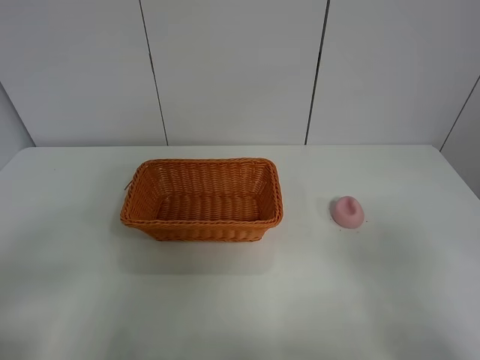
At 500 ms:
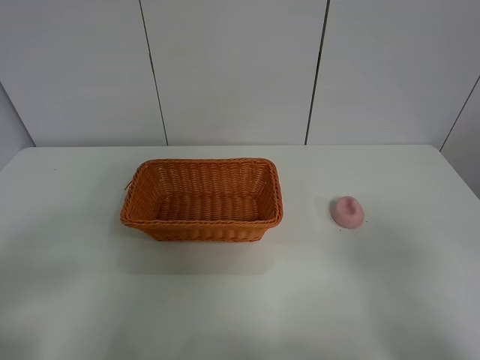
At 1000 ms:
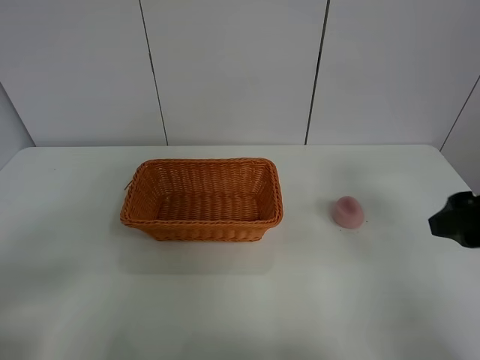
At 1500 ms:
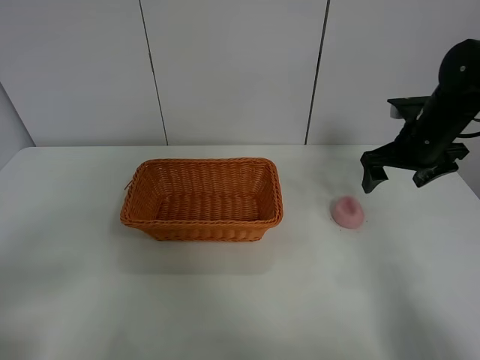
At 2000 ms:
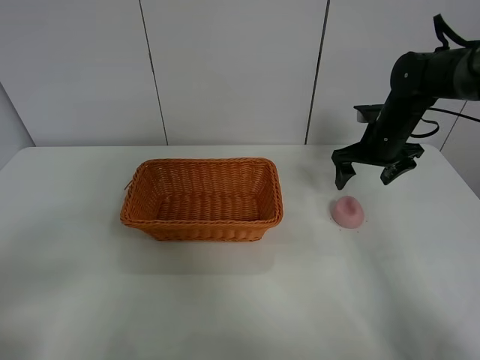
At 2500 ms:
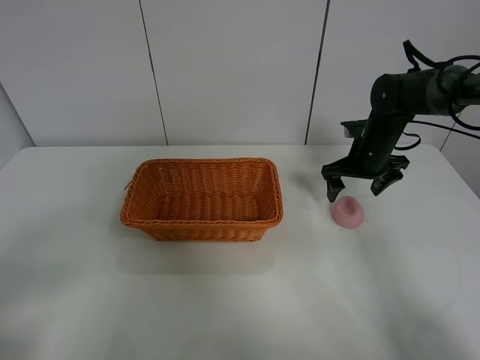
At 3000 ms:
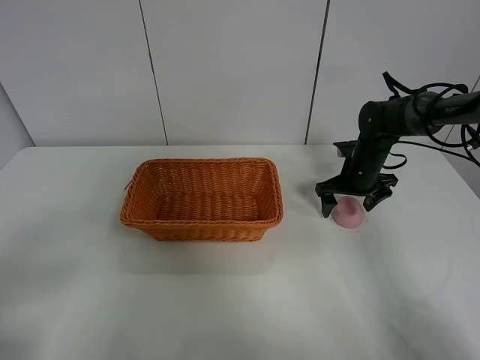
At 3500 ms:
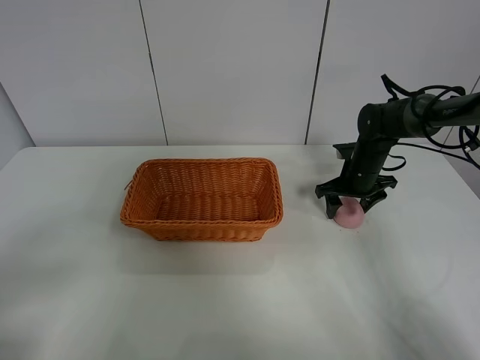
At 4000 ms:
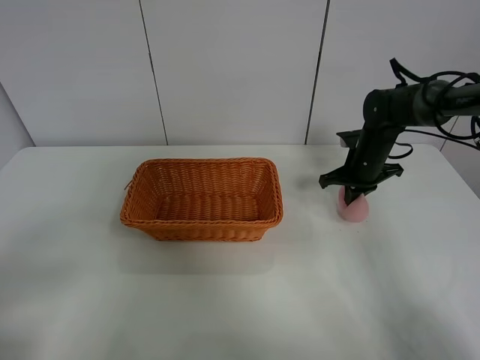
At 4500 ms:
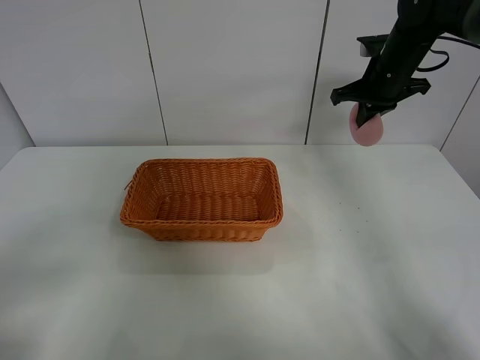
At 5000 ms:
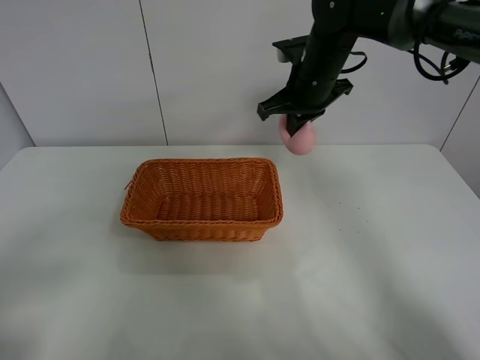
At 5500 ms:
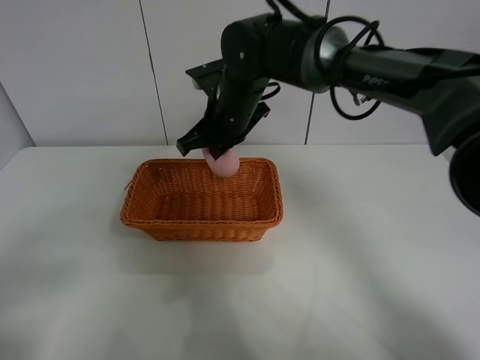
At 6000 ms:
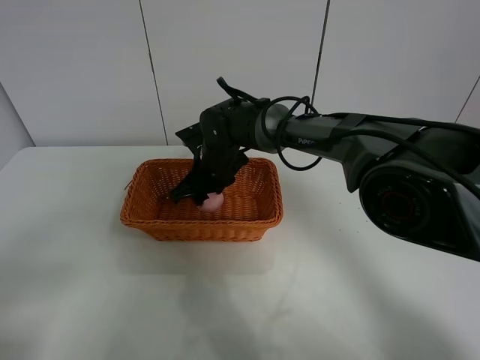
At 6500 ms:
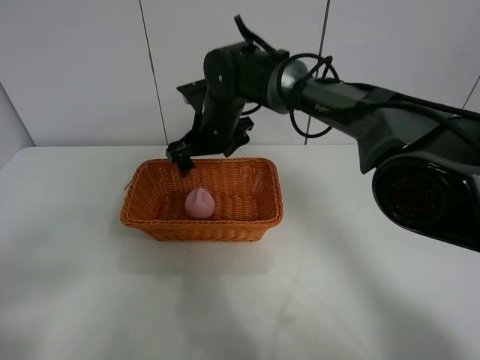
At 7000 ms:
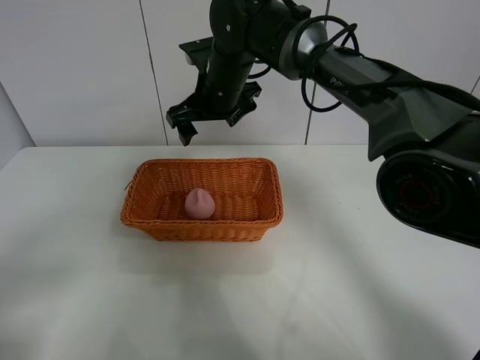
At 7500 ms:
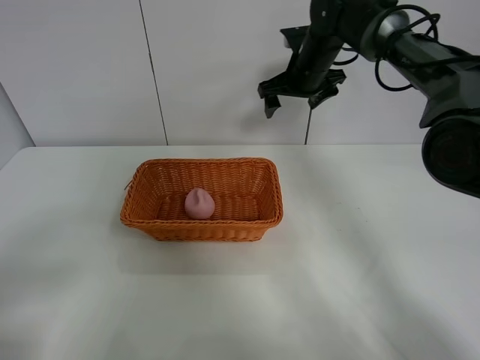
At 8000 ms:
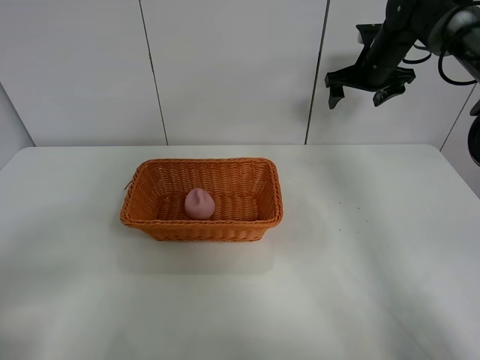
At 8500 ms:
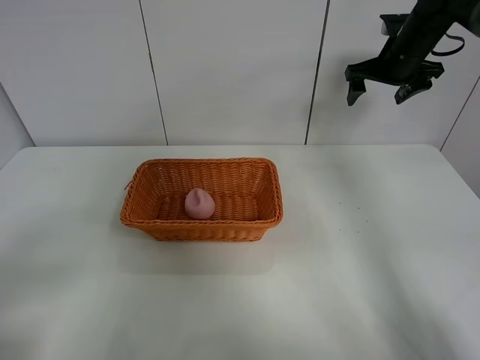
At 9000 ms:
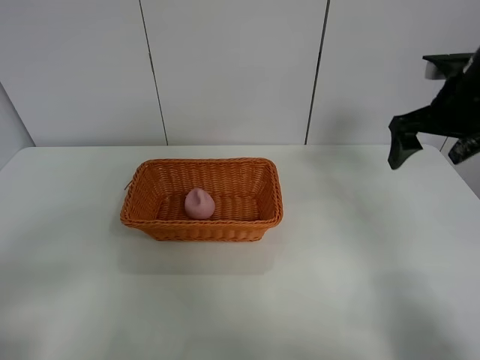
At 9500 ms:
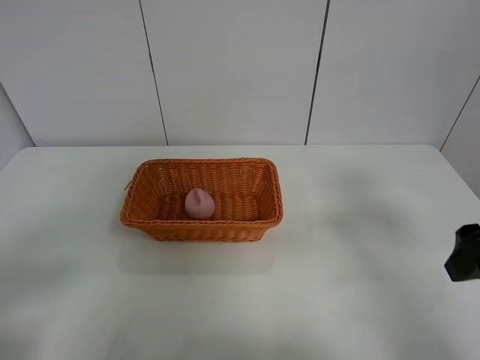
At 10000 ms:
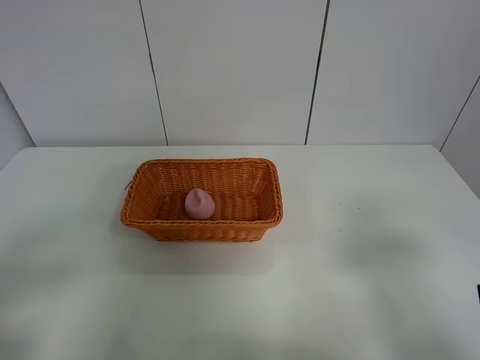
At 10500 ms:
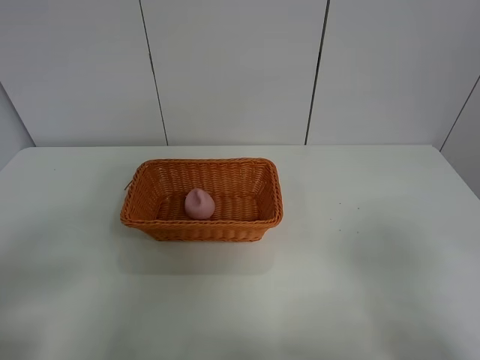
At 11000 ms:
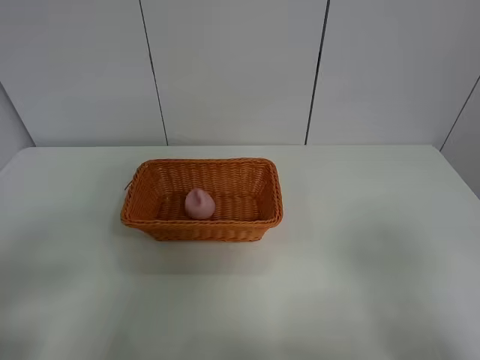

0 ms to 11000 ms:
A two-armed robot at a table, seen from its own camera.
Step, 0 ms to 3500 ms: Grasp the peach with right gripper.
Step, 4000 ms to 6500 ms: Place the peach in the basket with right gripper.
0 ms to 2000 ms: The right gripper goes approximately 40 cm forward.
2000 ms to 3500 ms: The right gripper is displaced downward by some 10 cm, and closes.
3500 ms to 5500 ms: The right gripper travels to the left and upward by approximately 30 cm, and closes its fingers.
5500 ms to 7500 ms: The right gripper travels to the right and forward by approximately 20 cm, and opens up.
7500 ms to 9000 ms: The right gripper is displaced backward and to the right by some 25 cm.
9000 ms to 11000 ms: The right gripper heads backward, covering some 30 cm.

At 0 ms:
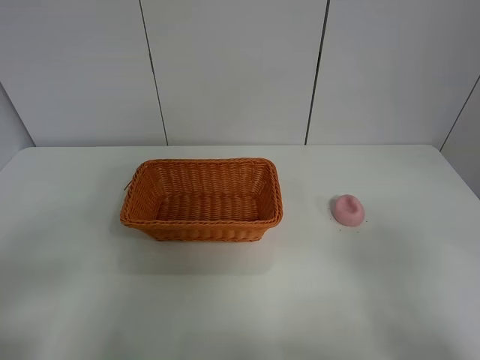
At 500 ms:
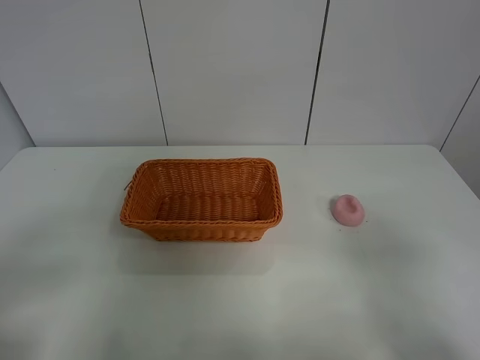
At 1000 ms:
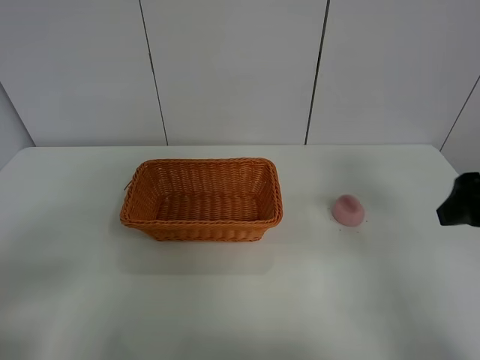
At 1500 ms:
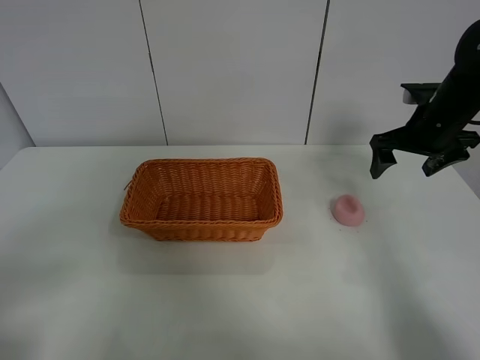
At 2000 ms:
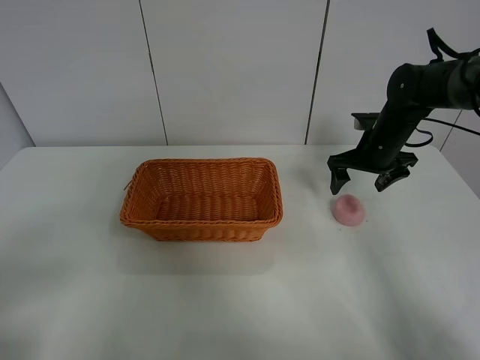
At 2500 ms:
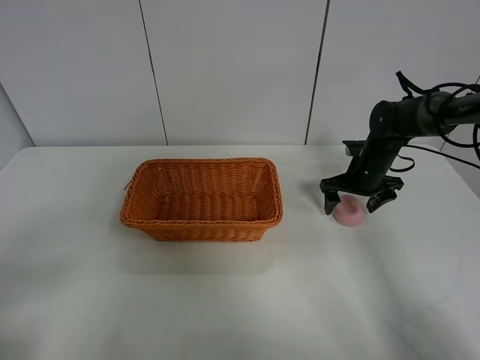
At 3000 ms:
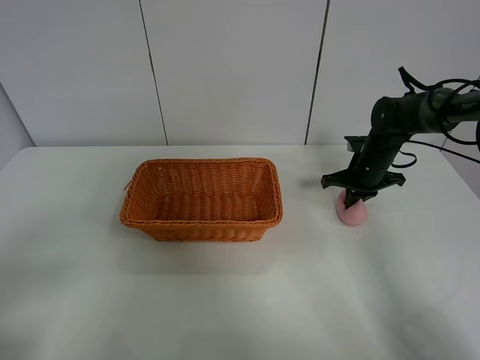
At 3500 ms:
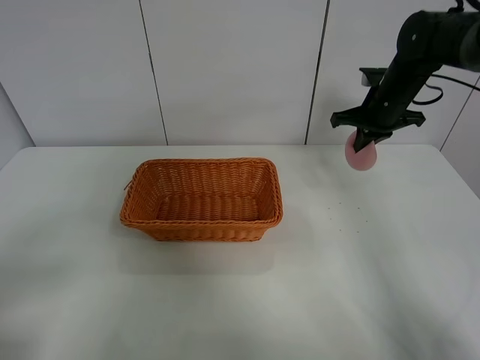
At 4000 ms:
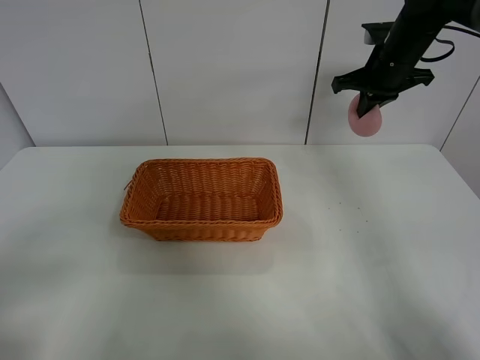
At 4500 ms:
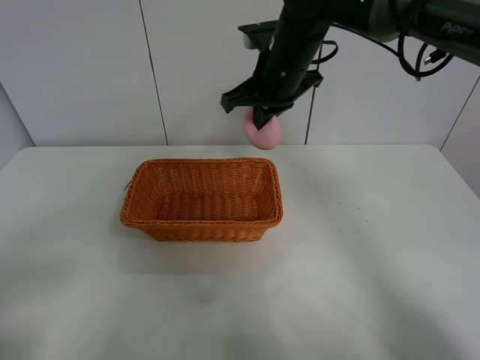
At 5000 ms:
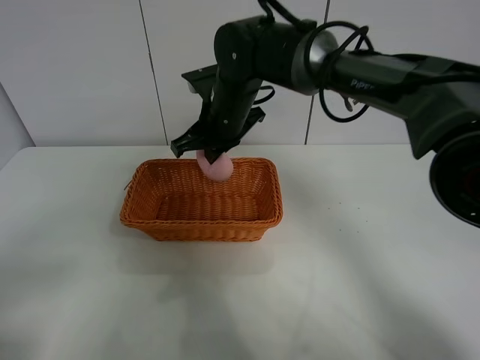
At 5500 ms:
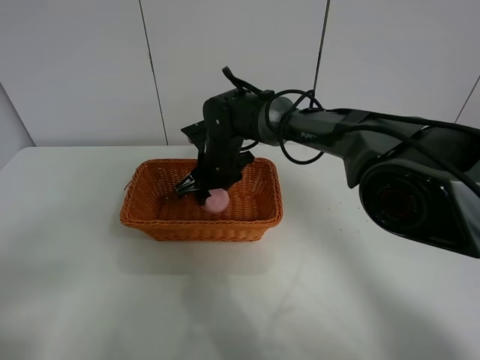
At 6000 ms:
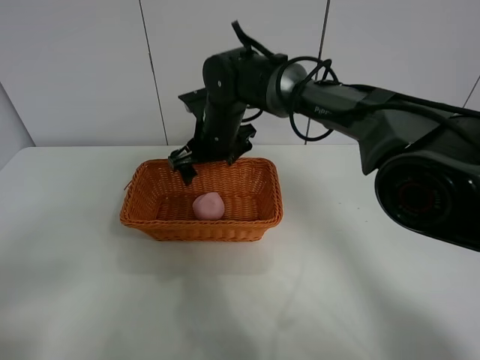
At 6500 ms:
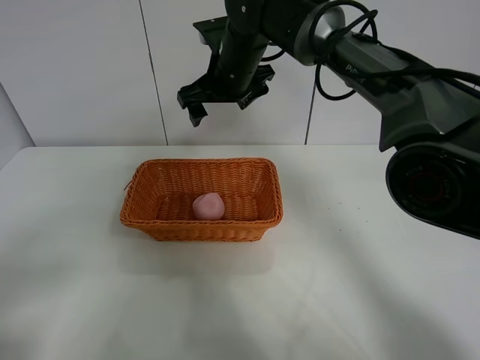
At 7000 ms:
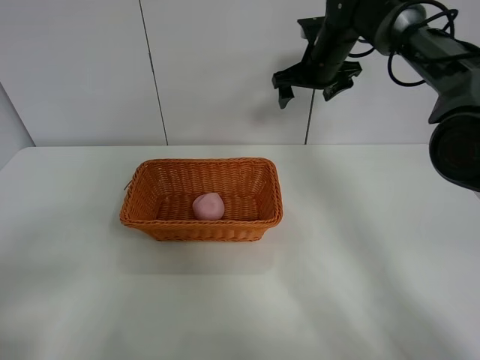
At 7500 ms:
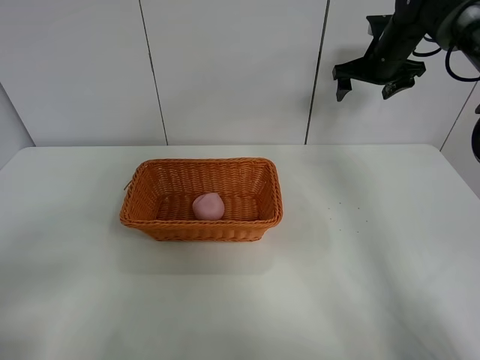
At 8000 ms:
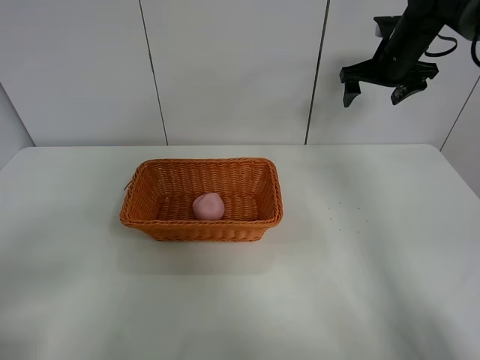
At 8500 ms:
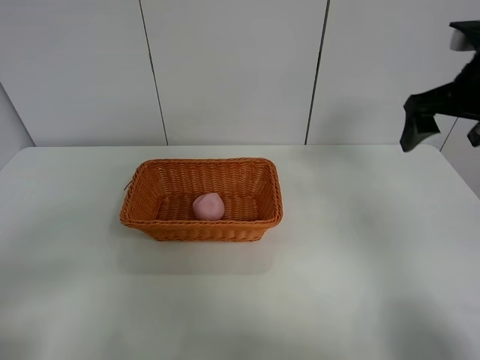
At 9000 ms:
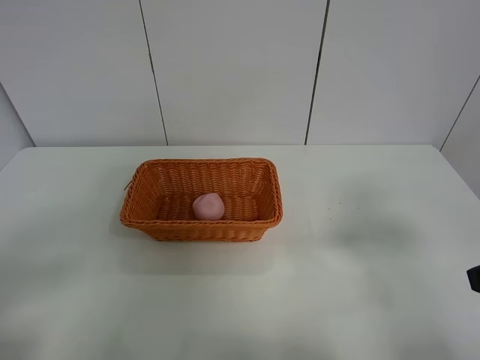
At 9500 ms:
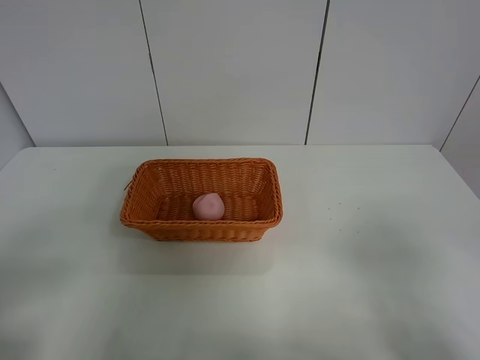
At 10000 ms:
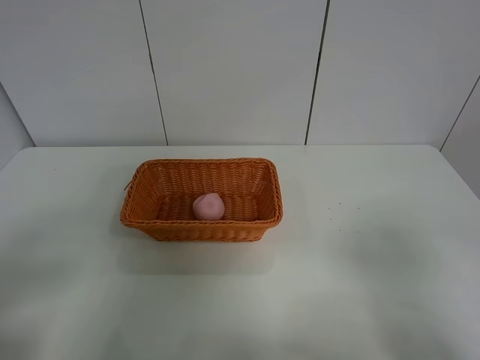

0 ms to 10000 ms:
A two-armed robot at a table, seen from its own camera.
Step, 0 ms to 3000 ms: Grasp the peach with right gripper.
Step, 3500 ms to 6000 ms: Place the peach in the basket with right gripper.
0 ms to 2000 ms: The right gripper goes approximately 40 cm forward.
2000 ms to 4000 ms: The right gripper moves upward, about 15 cm, and closes up.
4000 ms to 6000 ms: The right gripper goes about 25 cm to the left, and opens up.
6000 ms to 8000 ms: The right gripper shifts roughly 30 cm to the right.
8000 ms to 10000 ms: The right gripper goes roughly 50 cm backward.
